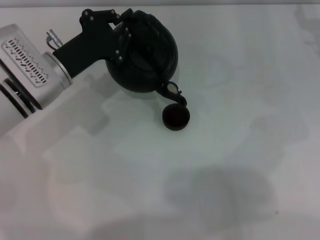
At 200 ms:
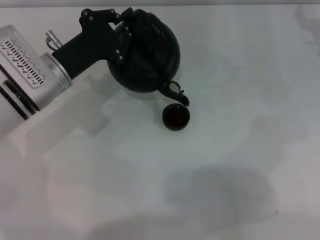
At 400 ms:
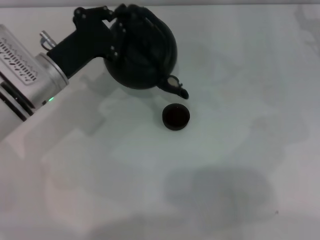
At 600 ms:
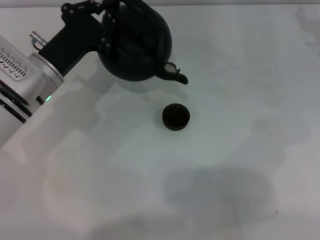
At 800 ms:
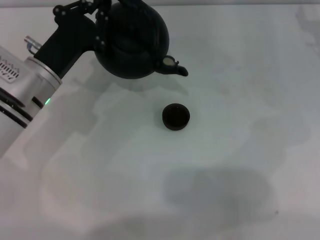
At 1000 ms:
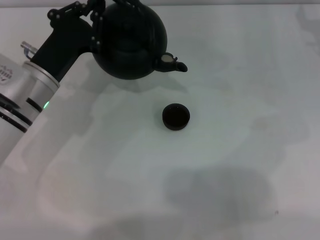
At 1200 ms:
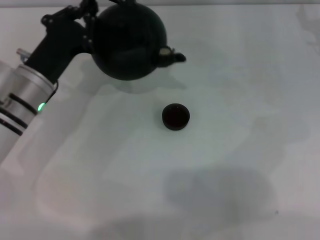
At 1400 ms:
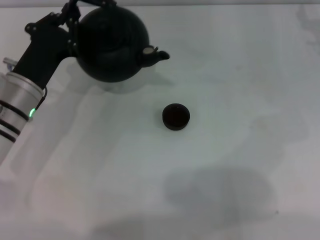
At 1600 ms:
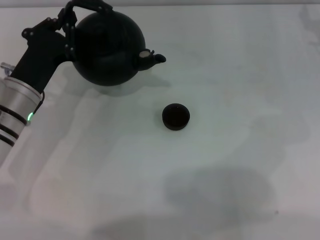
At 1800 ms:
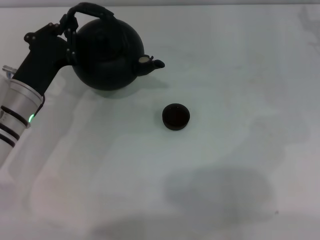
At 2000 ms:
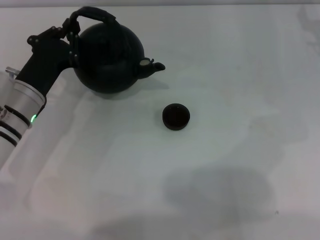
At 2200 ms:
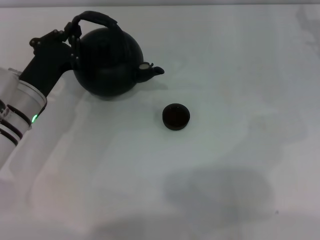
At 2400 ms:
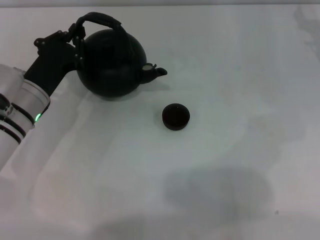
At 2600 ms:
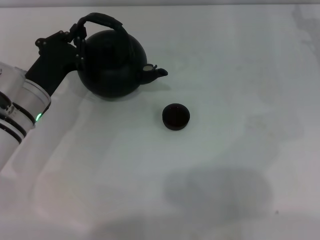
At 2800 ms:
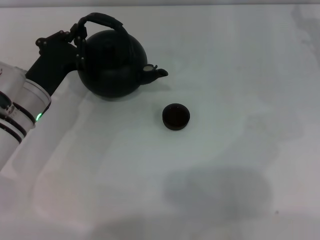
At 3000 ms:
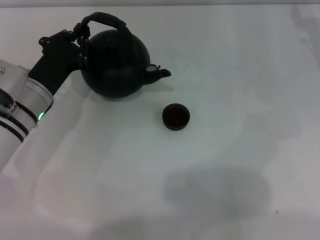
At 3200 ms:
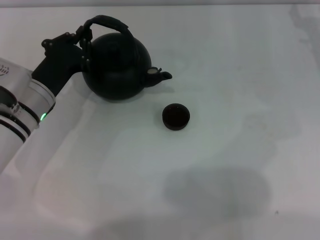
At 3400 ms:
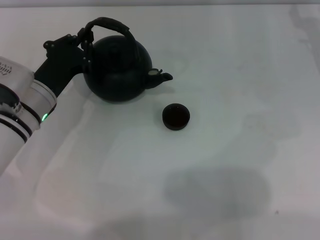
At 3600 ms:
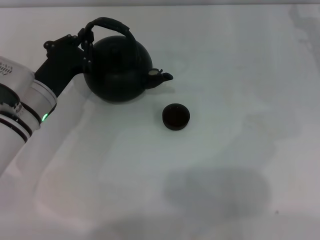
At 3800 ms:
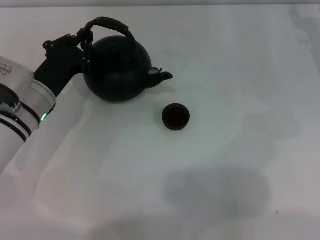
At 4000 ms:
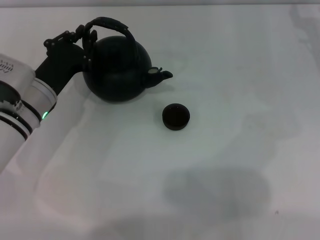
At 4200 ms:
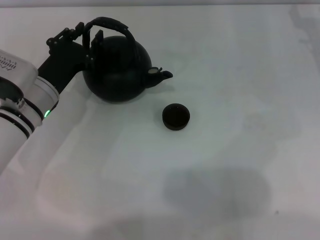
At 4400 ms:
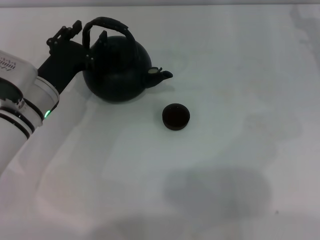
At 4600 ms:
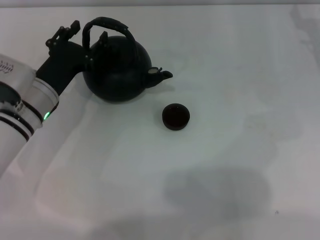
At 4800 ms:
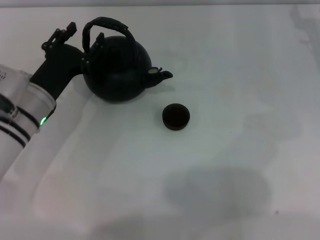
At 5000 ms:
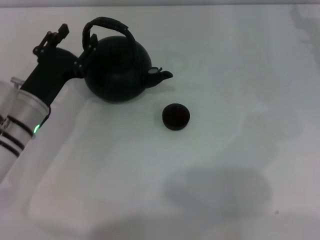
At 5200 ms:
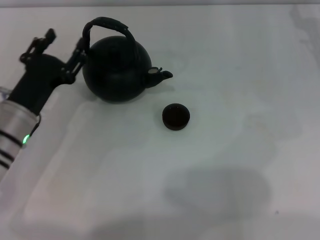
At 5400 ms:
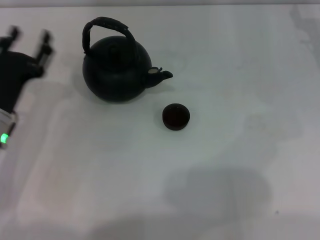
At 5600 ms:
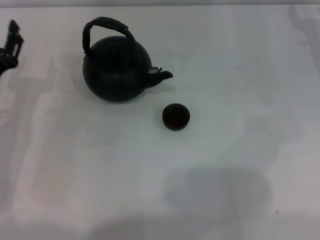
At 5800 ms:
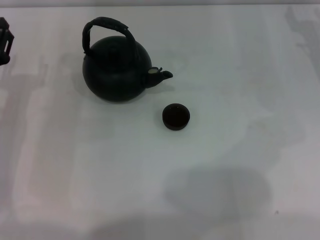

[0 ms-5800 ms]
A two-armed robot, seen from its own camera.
Task of the whole recording: Grasp the handle of the teapot with one hand and pour tea into the teacup.
Step, 800 ms to 5200 ms: Put down the teapot with the left gripper.
1400 ms to 2800 ms: The grippers make only small movements.
2800 ms to 4400 ms: The left gripper opens.
4400 ms to 5800 ms: The left gripper moves to the left, about 10 cm.
